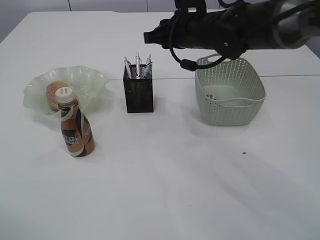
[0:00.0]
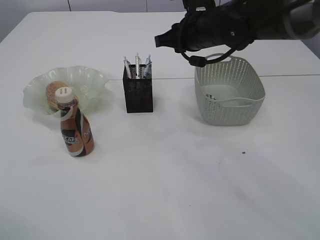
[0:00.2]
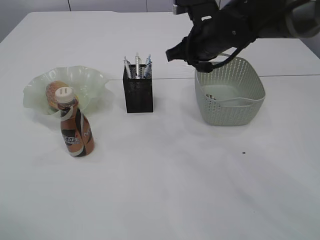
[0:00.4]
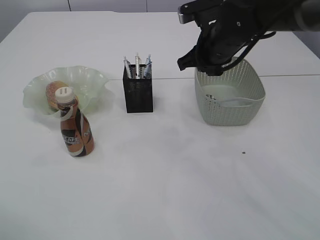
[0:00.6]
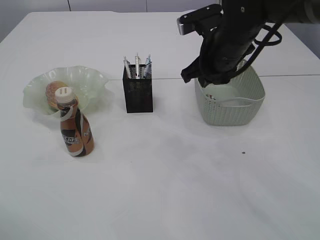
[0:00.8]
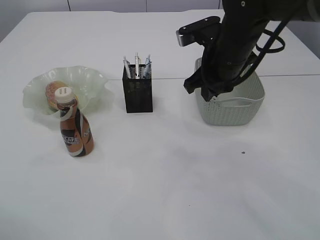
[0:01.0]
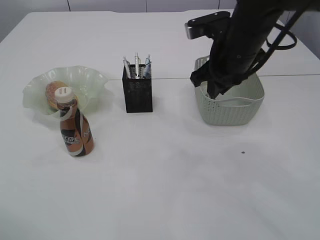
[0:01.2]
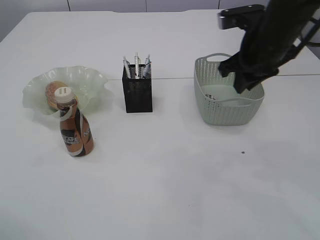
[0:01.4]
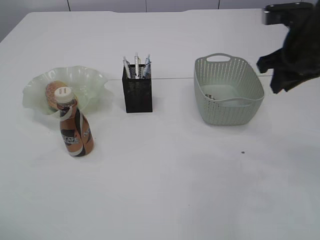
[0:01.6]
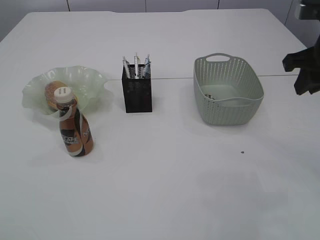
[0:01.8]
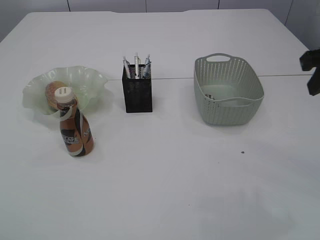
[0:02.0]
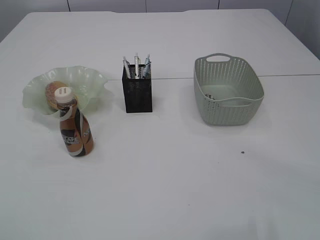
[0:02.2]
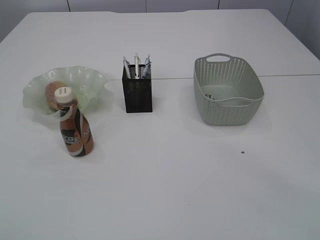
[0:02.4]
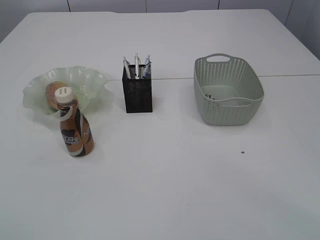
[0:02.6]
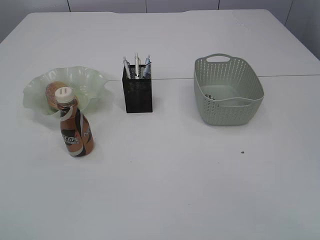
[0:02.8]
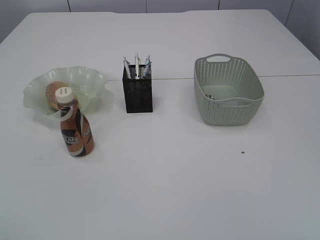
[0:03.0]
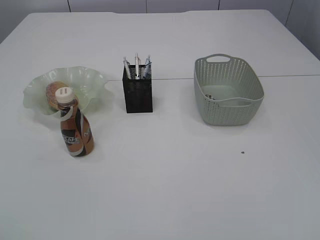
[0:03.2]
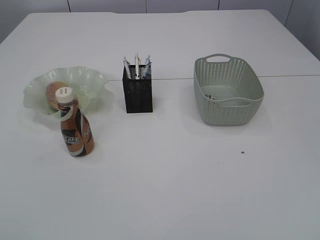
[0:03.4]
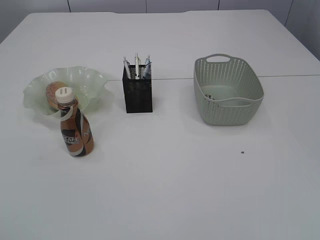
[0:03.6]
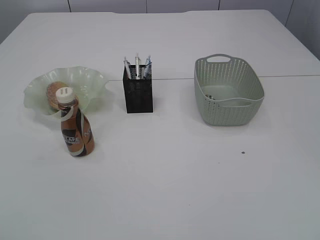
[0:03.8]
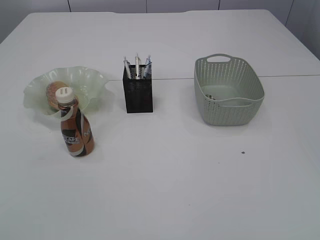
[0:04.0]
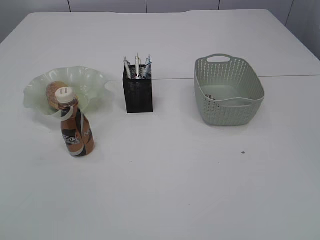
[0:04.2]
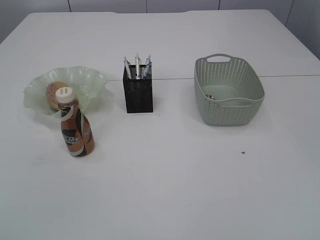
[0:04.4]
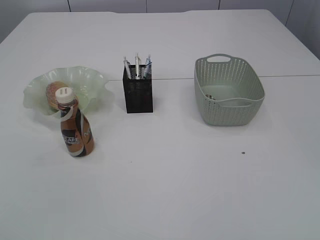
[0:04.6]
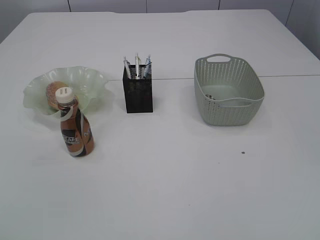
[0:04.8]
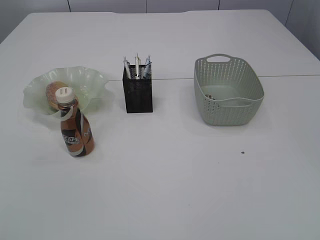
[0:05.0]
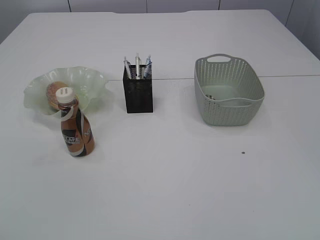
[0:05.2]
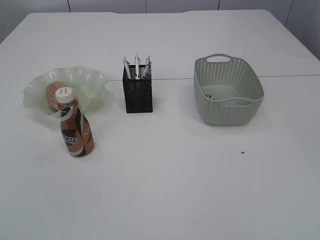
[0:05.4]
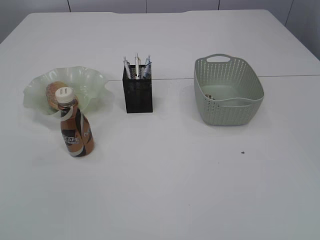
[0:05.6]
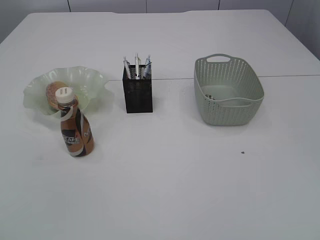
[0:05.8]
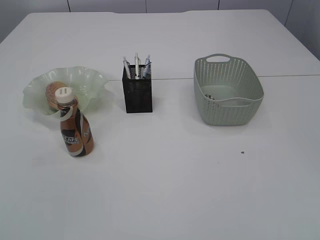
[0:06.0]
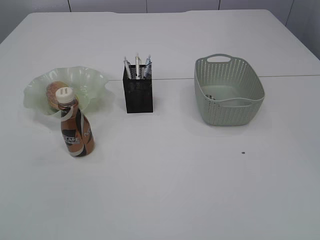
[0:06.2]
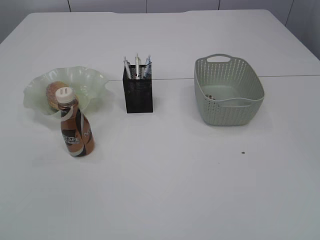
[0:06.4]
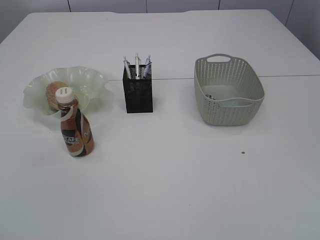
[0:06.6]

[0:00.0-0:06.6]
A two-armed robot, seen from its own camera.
0.0 to 1.6 s: The right gripper heads to the right and backward, covering some 20 cm.
1.6 to 3.2 s: The right gripper is displaced backward by approximately 40 cm. The left gripper shifts some 20 cm backward.

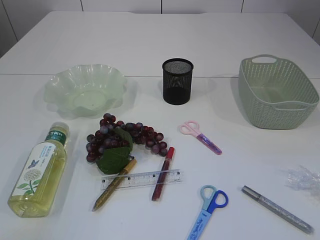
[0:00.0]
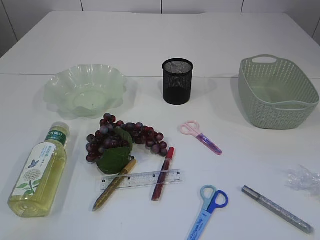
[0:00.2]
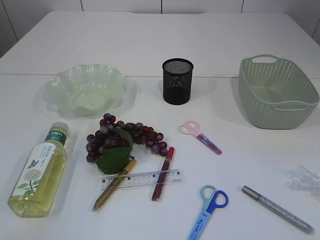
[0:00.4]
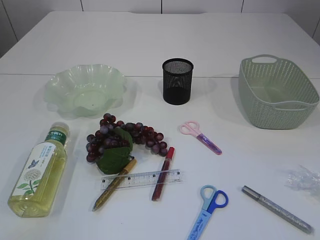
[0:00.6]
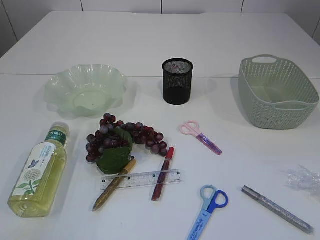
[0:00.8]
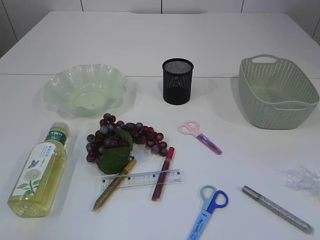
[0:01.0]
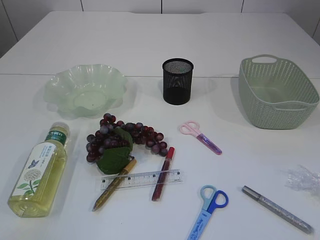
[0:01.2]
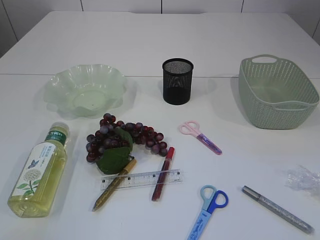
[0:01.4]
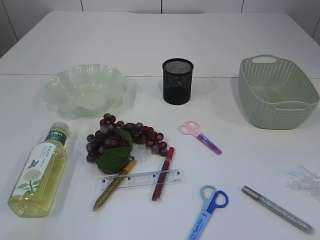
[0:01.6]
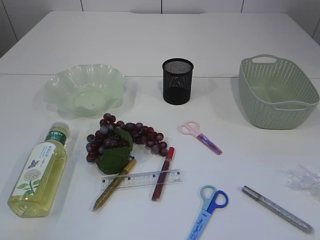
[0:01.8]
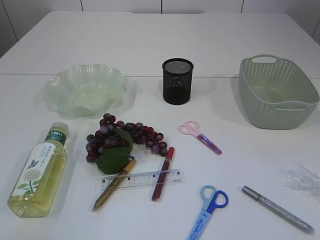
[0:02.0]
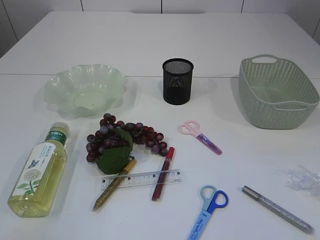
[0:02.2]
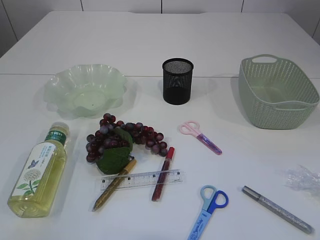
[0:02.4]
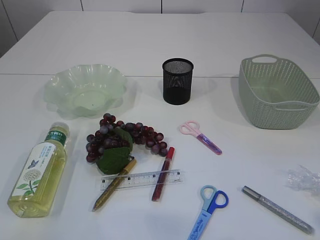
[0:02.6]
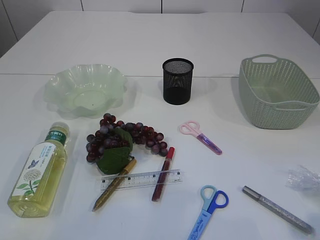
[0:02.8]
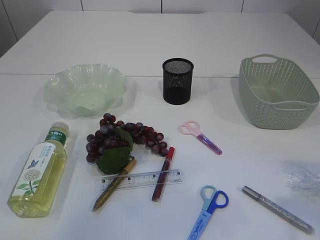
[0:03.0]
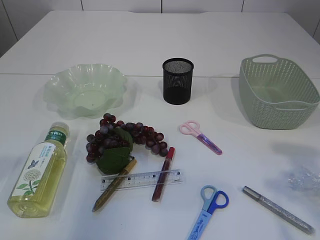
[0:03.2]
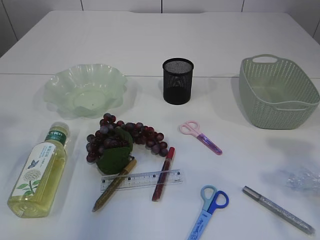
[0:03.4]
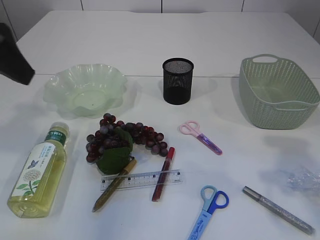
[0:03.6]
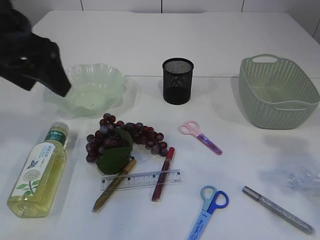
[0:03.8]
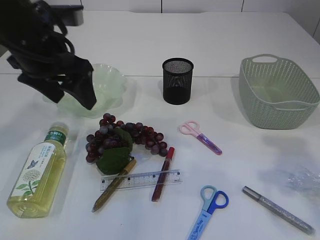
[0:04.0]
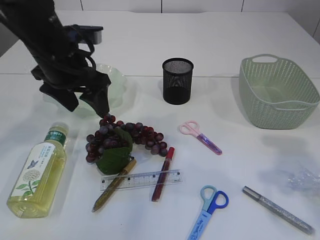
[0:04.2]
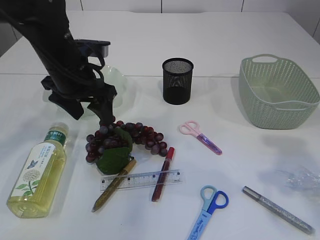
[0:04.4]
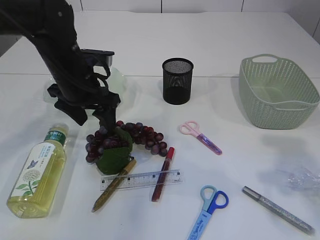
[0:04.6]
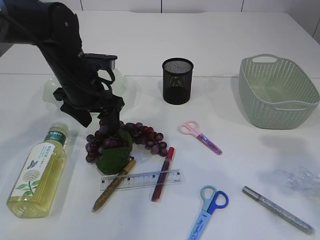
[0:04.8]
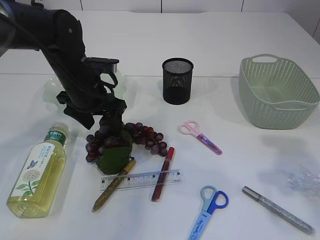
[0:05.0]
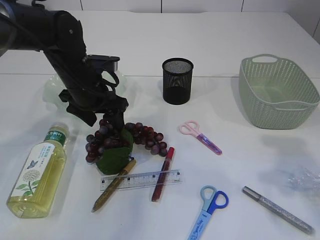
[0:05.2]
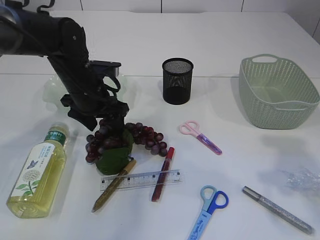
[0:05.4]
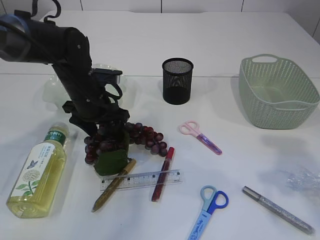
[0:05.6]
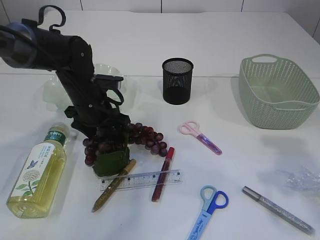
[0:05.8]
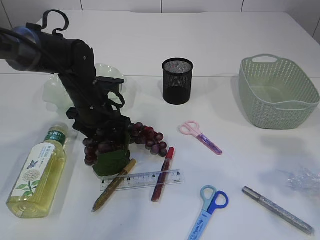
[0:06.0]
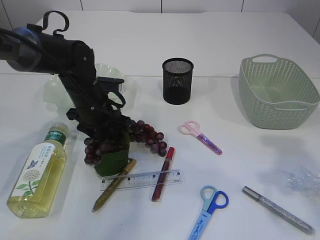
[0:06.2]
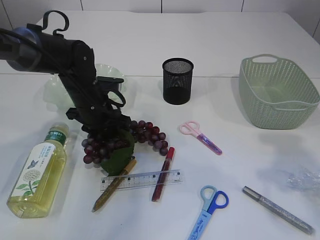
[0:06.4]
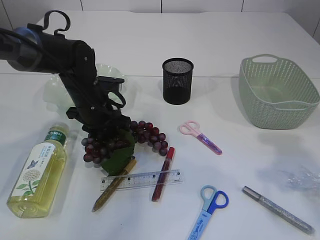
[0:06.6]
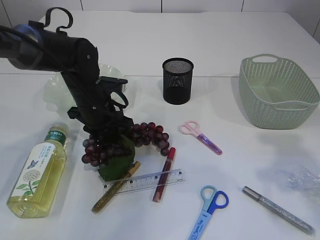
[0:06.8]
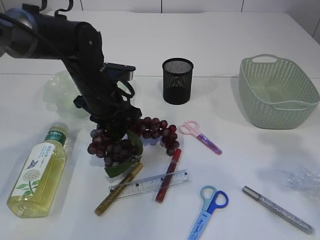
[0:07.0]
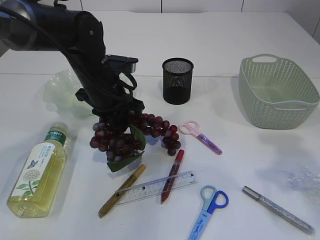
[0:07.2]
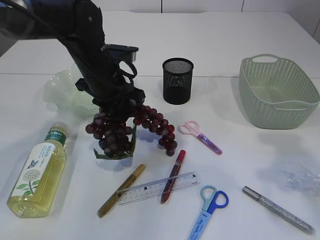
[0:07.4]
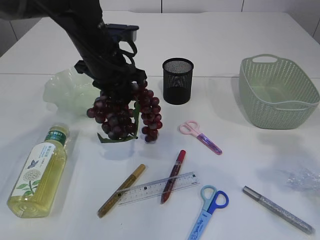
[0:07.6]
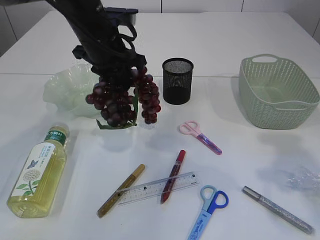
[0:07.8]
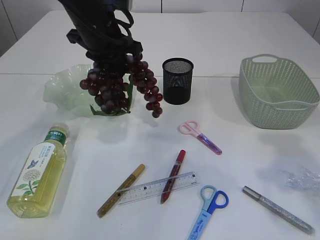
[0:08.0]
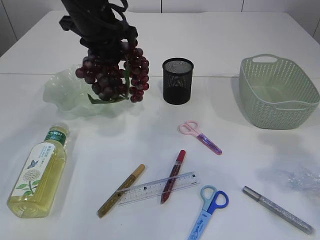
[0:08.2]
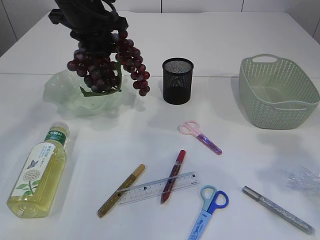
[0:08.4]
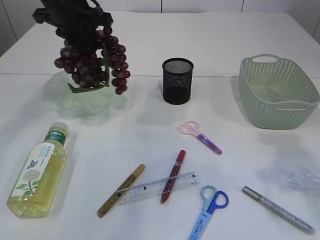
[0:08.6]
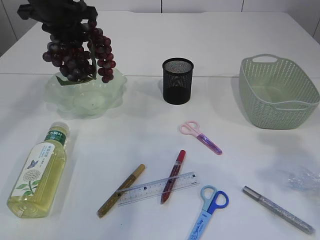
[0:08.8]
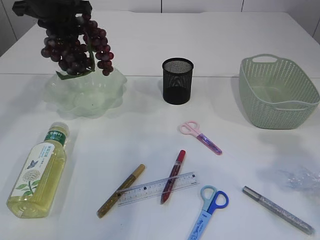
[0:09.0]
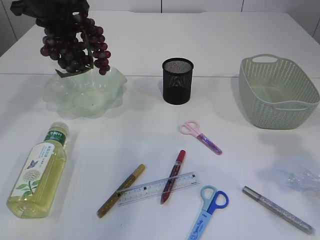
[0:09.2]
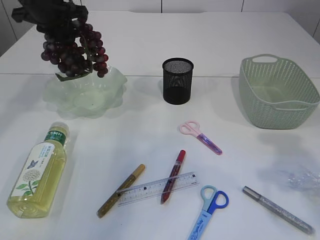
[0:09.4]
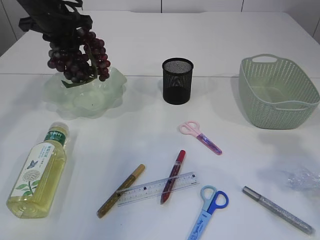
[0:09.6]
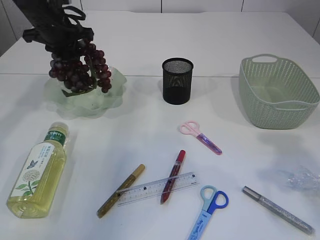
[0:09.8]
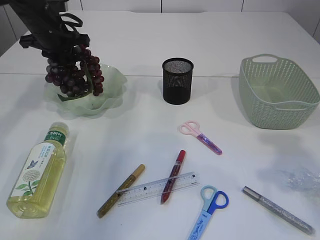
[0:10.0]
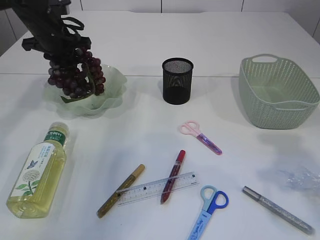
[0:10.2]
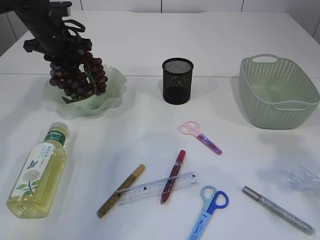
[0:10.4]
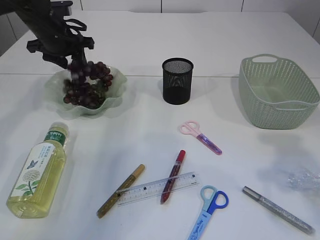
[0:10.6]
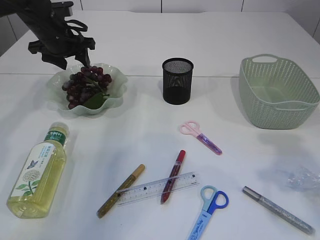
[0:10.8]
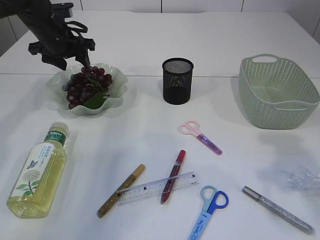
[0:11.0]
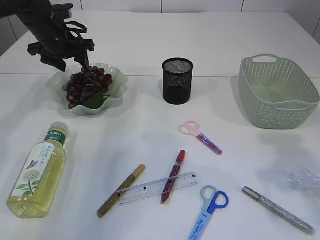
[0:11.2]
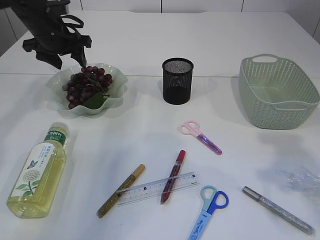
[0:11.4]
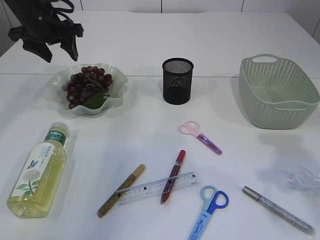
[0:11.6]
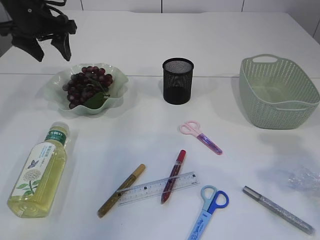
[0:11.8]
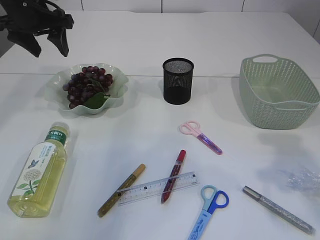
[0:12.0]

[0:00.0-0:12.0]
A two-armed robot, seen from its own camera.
Step, 0.0 to 7.8 s: Pick up the grapes.
Step, 8.0 to 11.4 s: Place the grapes in the plate.
1.6 to 3.0 s: The right gripper travels forward by about 15 cm. The left gripper shifts some 15 cm forward and upward, and opens.
3.0 to 4.4 s: The left gripper is displaced forward, to the right and downward by approximately 30 cm; the right gripper goes approximately 10 cm forward.
4.4 to 6.0 s: The left gripper moves downward, roughly 10 cm.
6.0 to 7.6 s: The left gripper is displaced upward by about 10 cm, and closes up.
7.6 to 9.0 s: The left gripper shifts about 15 cm to the left, upward and forward.
9.0 to 10.4 s: The left gripper shifts roughly 10 cm downward.
10.4 to 12.0 s: The left gripper travels upward by roughly 5 cm, and opens up.

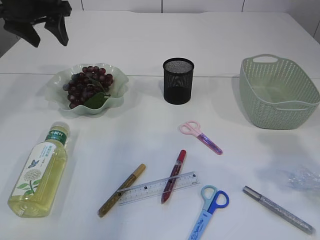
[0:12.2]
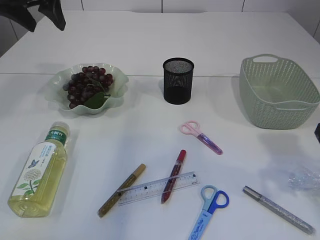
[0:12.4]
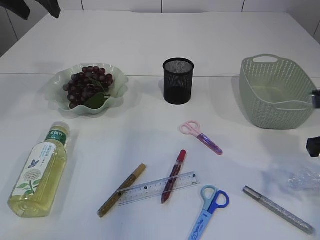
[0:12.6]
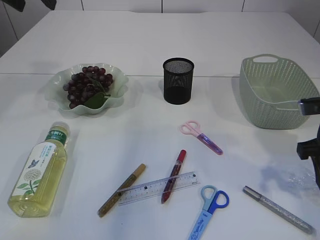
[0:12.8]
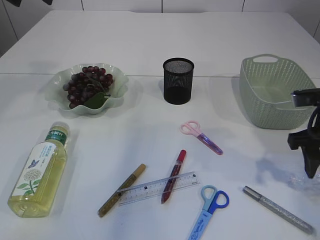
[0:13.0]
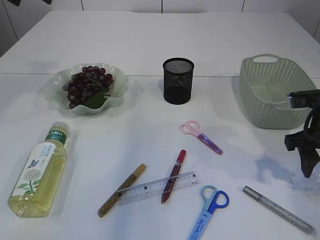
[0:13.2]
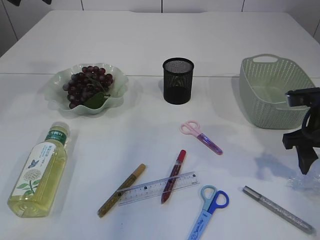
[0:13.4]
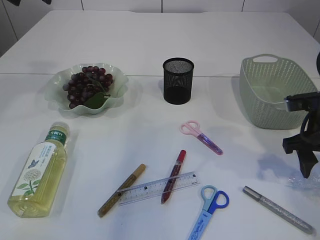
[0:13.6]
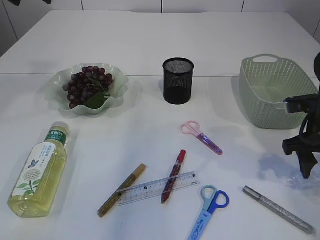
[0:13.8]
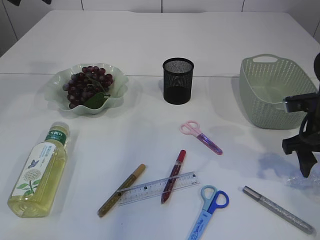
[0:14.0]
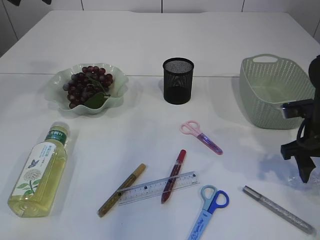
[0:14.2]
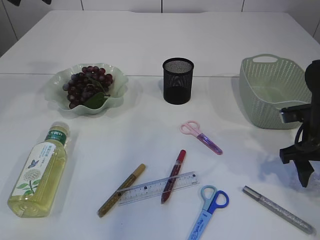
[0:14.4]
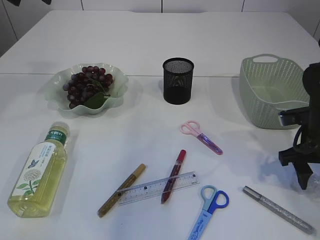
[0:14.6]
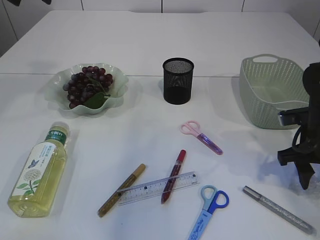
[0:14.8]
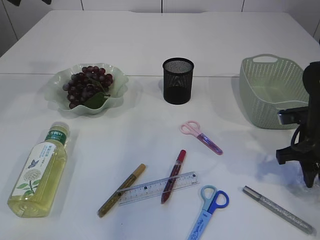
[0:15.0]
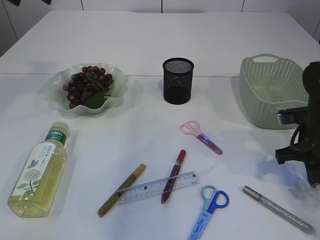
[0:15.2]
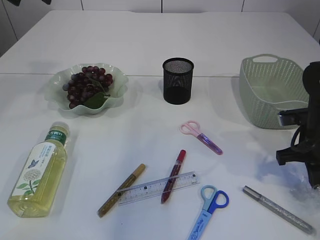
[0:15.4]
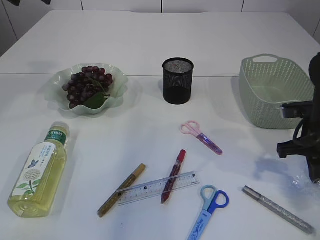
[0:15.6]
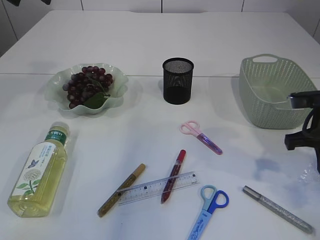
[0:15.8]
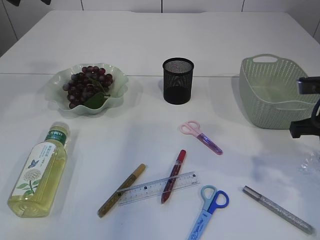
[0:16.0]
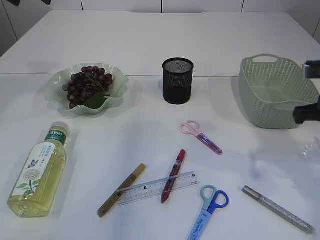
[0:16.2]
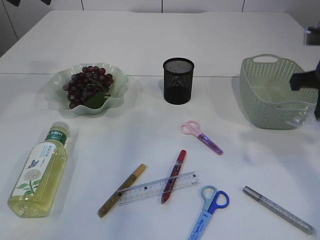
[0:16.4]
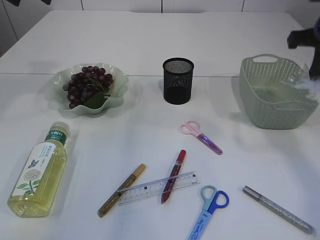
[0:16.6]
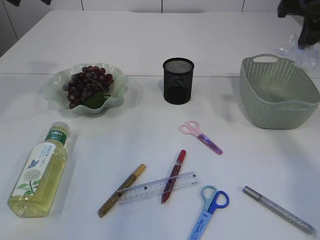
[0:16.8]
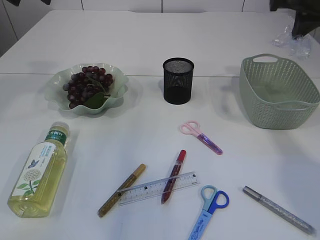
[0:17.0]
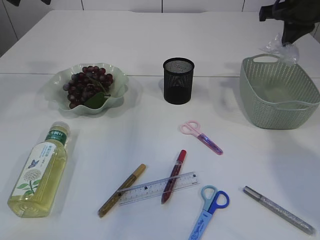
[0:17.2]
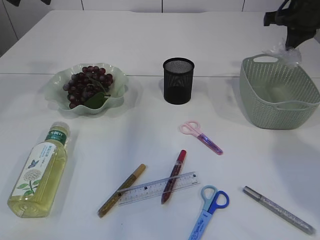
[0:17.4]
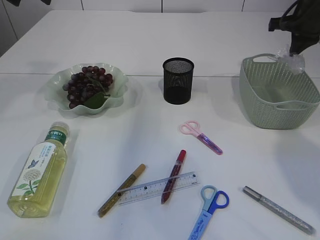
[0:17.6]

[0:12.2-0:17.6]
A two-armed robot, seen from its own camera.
Step, 12.2 to 15.8 s: Pick up the plastic.
12.2 to 13.6 s: The left gripper travels upward by approximately 10 cm; the right gripper travels downward and forward by approximately 15 cm.
13.6 to 15.0 s: The right gripper closes.
15.0 to 16.2 s: The right gripper moves upward, about 10 cm, and closes.
16.2 to 17.6 s: The right gripper heads forward, covering roughly 20 cm.
